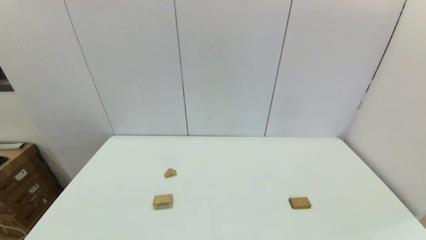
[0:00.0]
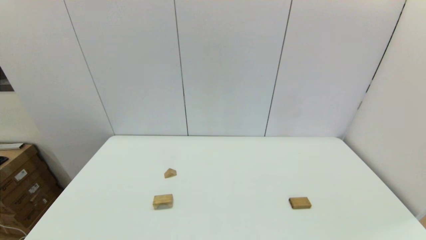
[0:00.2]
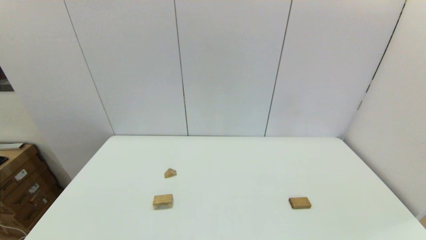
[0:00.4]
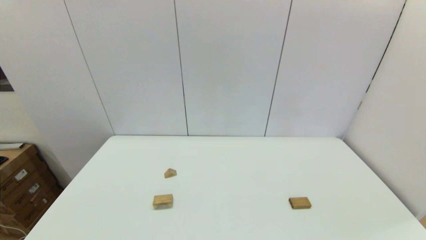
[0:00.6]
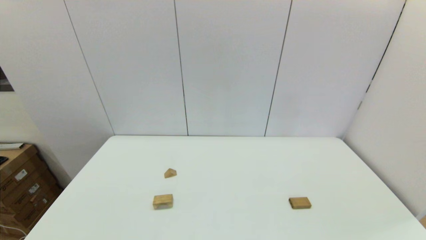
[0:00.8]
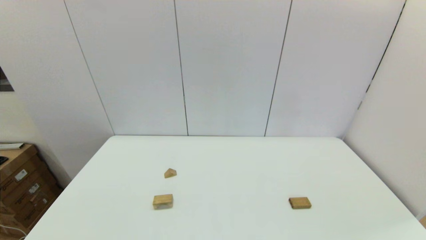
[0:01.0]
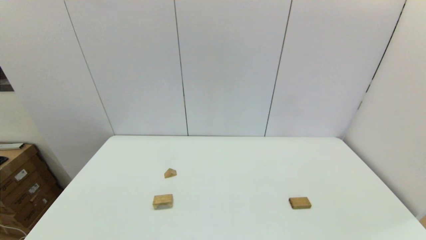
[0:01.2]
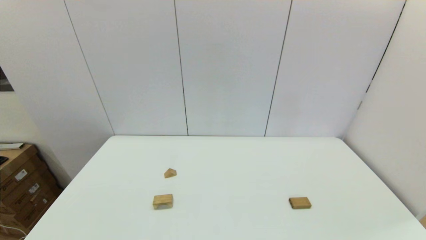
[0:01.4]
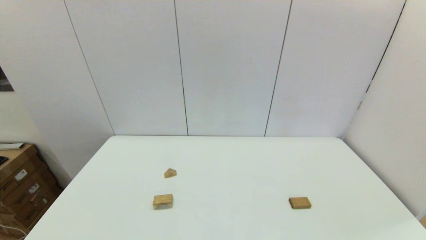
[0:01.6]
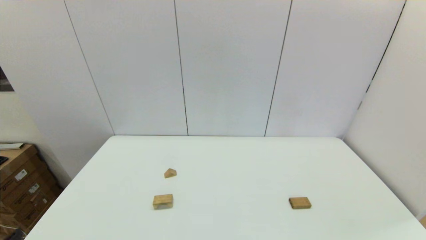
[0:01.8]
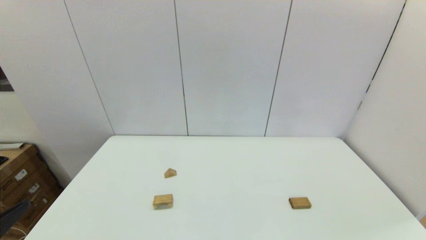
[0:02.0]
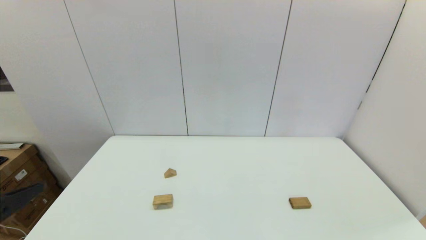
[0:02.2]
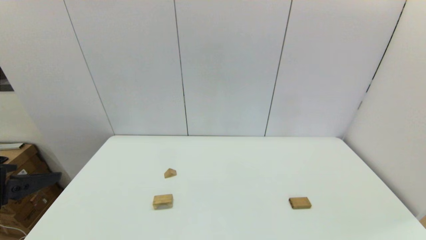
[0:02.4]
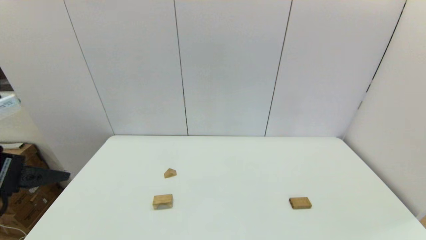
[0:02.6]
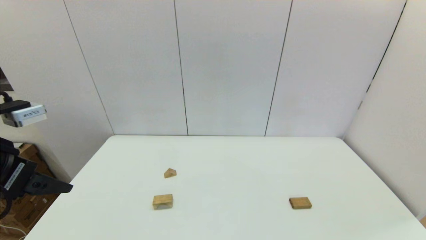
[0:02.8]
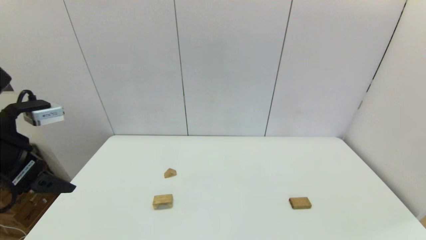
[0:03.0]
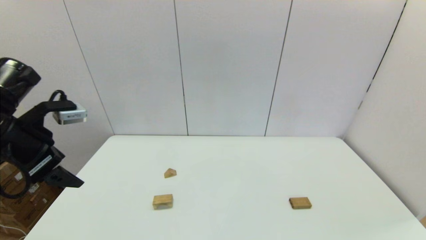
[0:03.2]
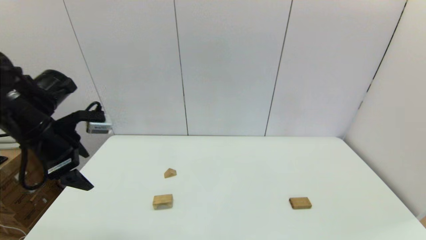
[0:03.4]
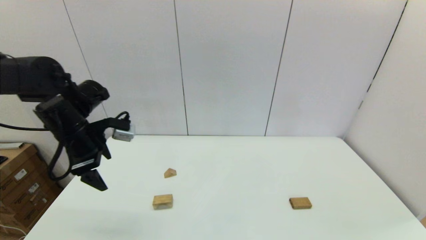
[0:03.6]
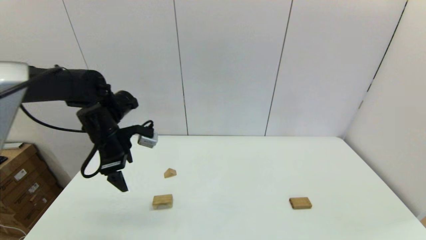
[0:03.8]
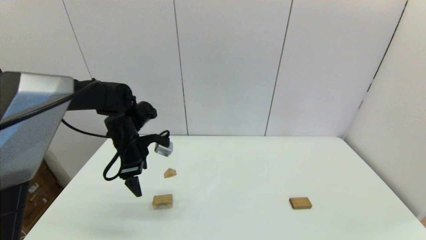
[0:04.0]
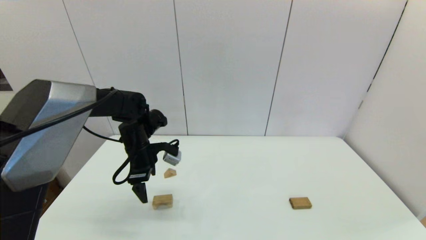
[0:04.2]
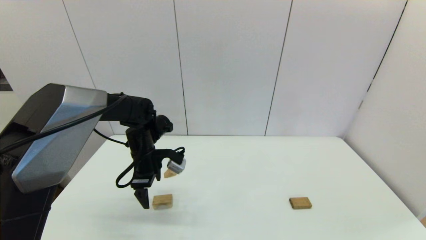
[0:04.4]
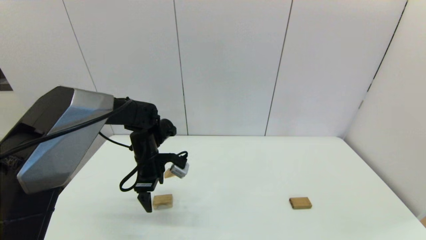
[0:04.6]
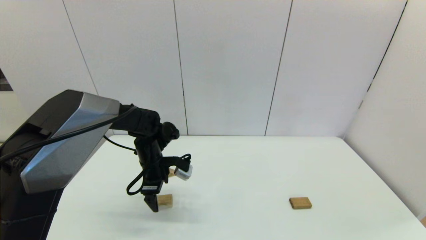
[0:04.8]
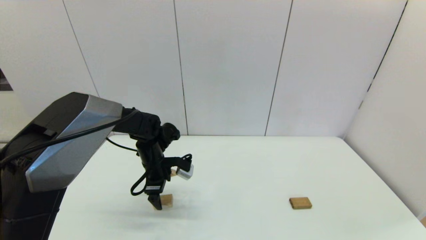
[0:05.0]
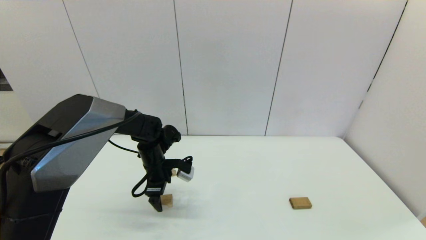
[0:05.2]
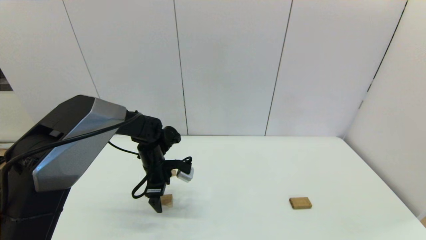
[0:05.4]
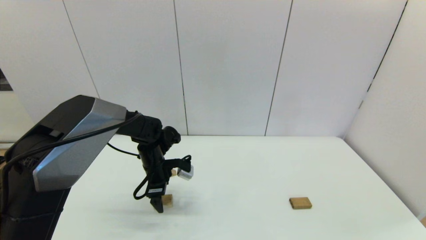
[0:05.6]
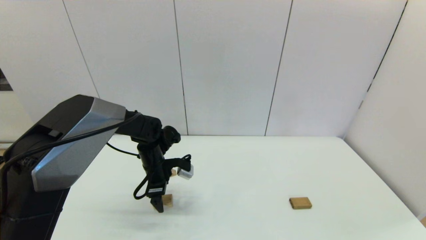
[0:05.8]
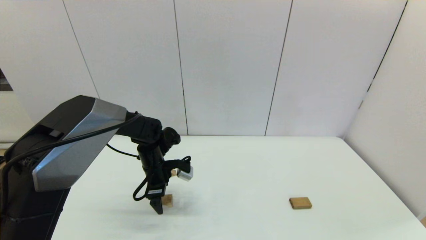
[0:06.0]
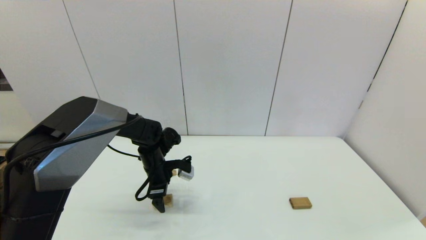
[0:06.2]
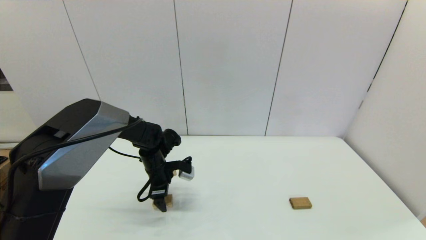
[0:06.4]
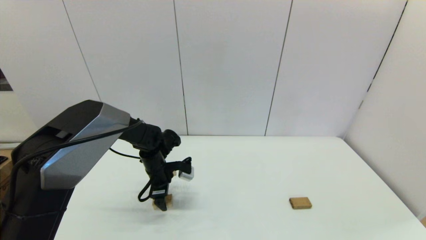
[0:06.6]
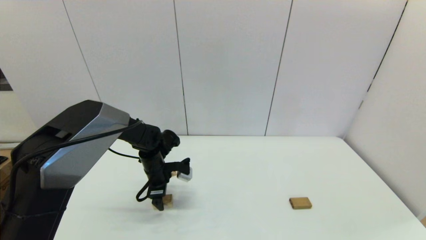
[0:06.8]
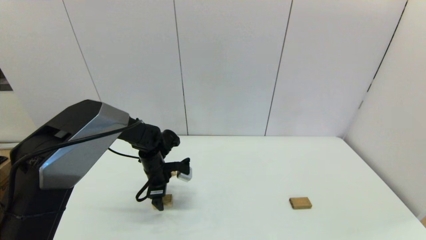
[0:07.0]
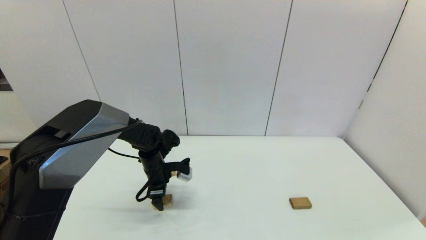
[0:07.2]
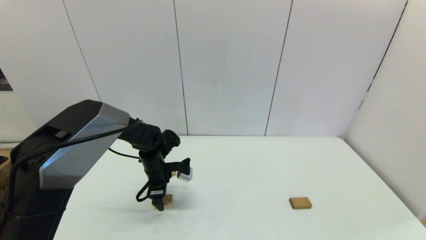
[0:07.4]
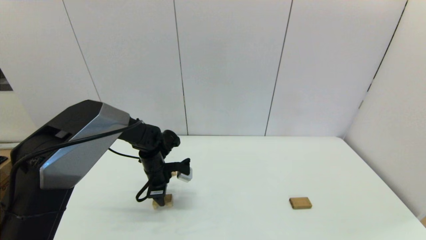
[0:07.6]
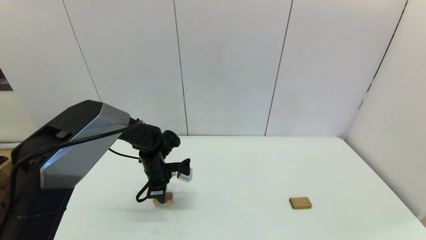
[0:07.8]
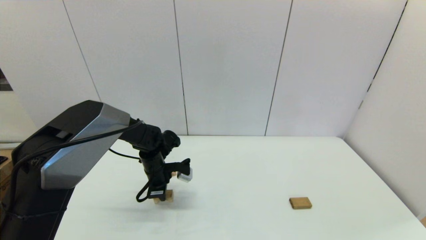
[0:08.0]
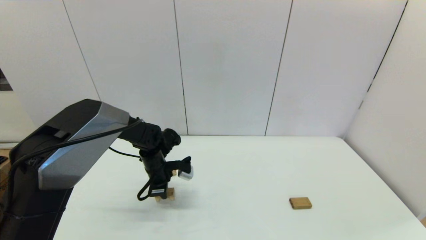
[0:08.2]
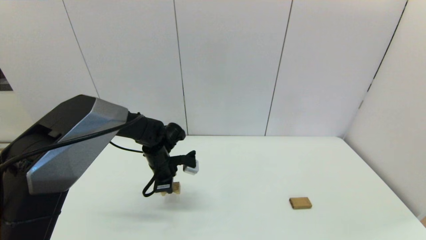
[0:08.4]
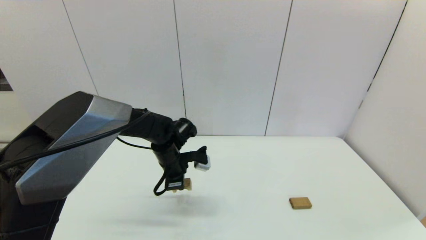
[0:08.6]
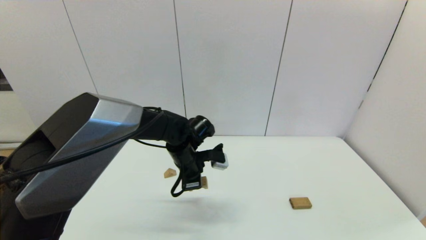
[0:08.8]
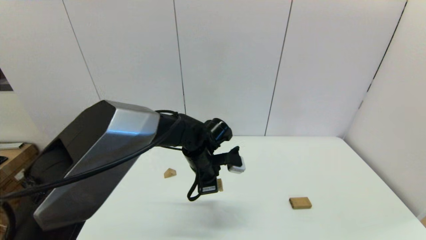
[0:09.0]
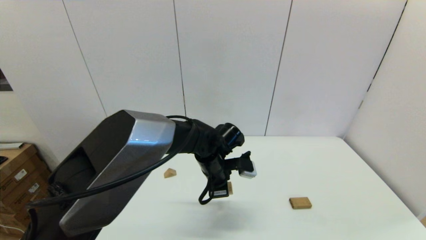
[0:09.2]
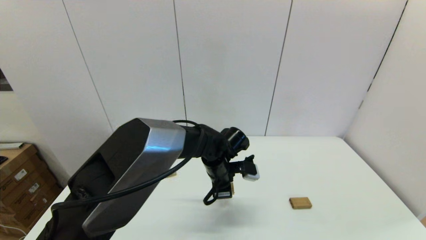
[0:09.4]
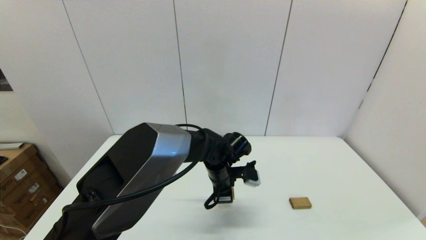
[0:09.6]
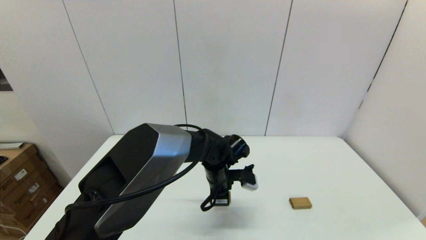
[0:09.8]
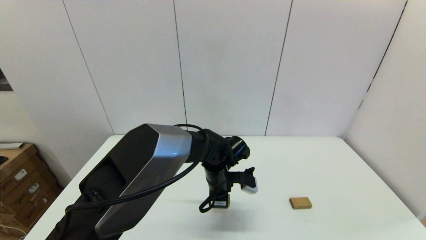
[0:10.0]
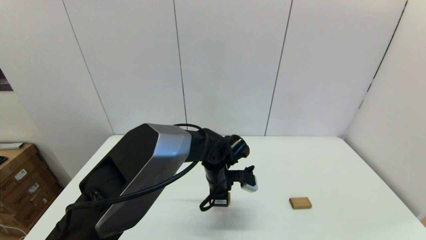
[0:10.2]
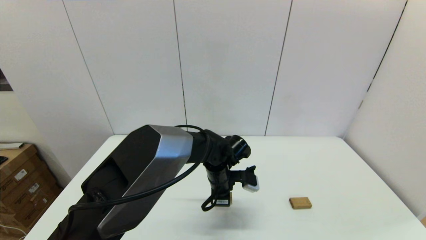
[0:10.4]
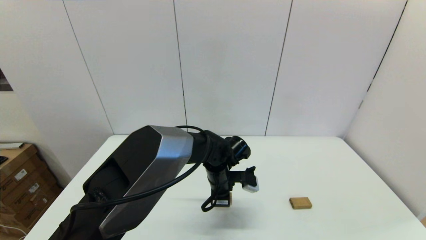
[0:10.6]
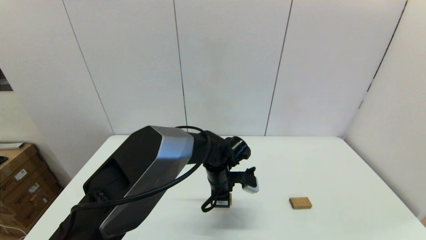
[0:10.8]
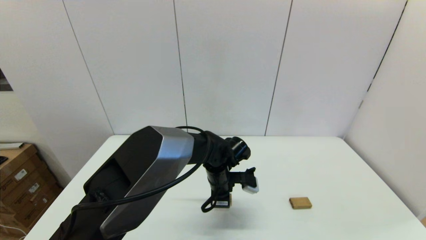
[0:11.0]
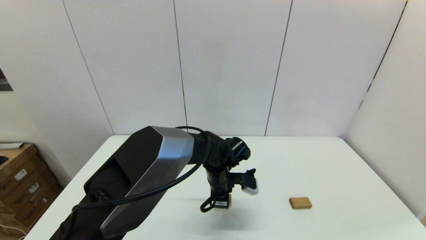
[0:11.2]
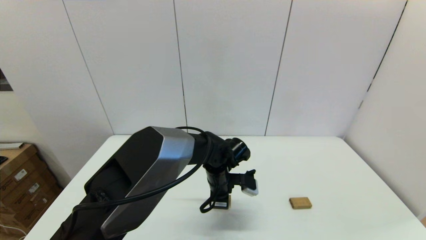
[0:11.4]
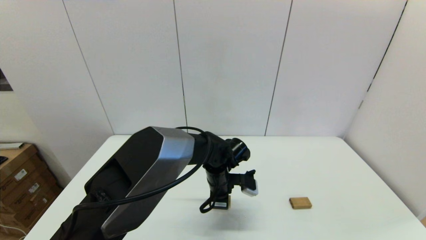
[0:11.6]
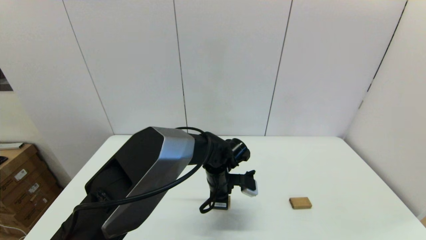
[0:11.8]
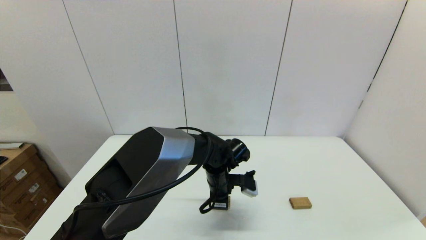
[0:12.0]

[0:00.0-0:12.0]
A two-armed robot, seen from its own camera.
Task of the whole recording: place the arched building blocks in the center of the table, set up the rectangular building blocks, and then set up the triangular building blocks.
Step, 0:01.8 to 0:07.6: Grasp the arch-shaped block with the left gripper.
0:01.6 to 0:03.0: The left gripper is displaced forward and upward by approximately 25 cm.
0:03.0 to 0:04.4: The left gripper moves forward, downward and to the right, roughly 25 cm.
0:04.4 to 0:06.0: The left gripper shifts some 5 cm downward.
0:06.0 to 0:07.6: The left gripper closes its fingers.
0:07.6 to 0:09.0: The left gripper travels to the right and upward by approximately 15 cm, and closes up.
0:09.0 to 0:10.4: The left gripper ends up approximately 5 cm from where it was.
0:10.4 to 0:12.0: Neither gripper changes place.

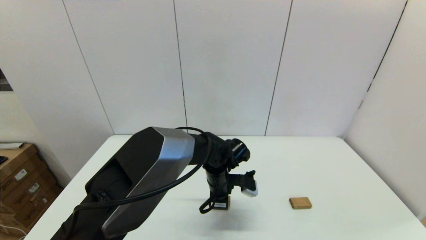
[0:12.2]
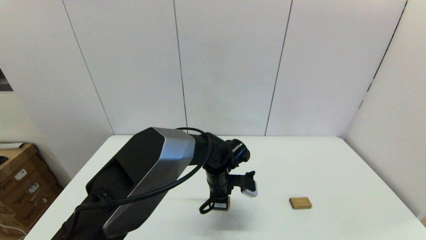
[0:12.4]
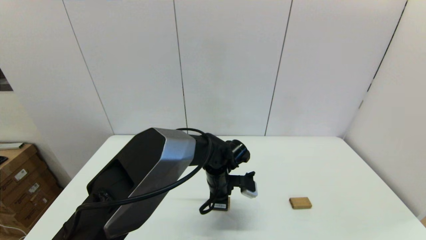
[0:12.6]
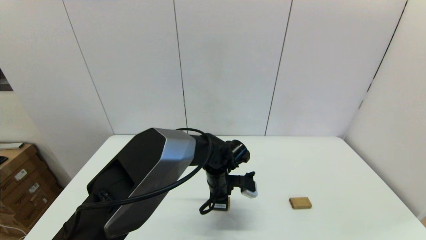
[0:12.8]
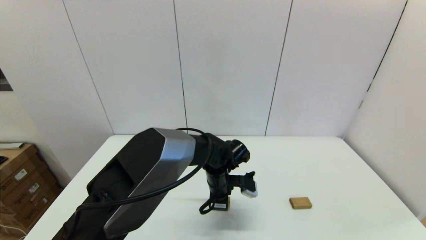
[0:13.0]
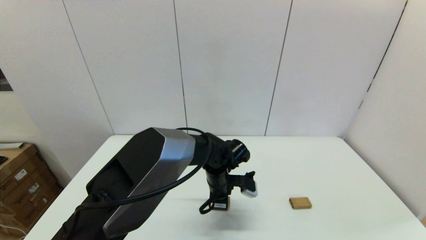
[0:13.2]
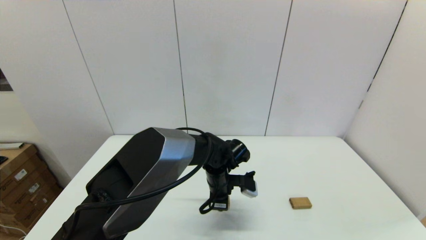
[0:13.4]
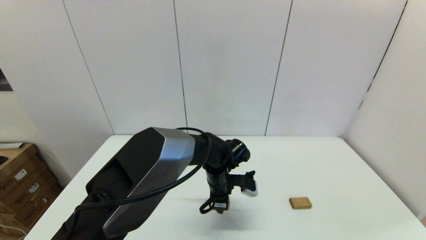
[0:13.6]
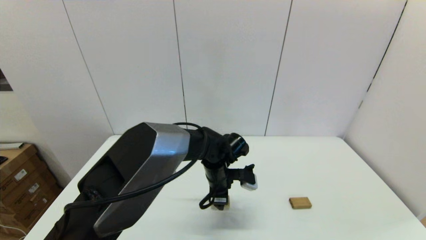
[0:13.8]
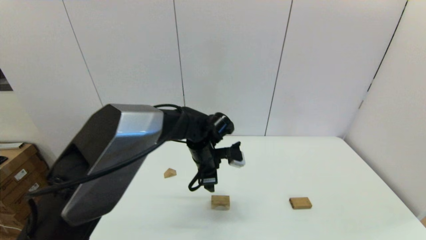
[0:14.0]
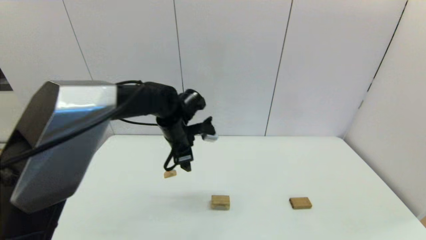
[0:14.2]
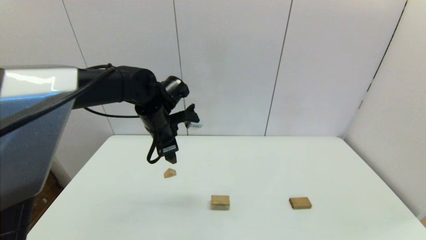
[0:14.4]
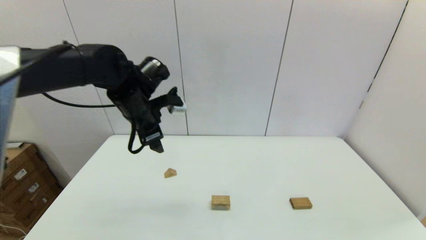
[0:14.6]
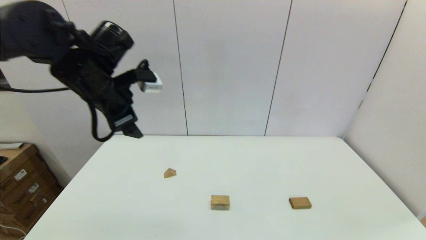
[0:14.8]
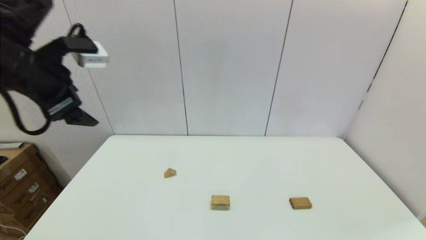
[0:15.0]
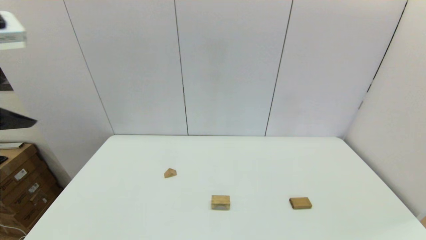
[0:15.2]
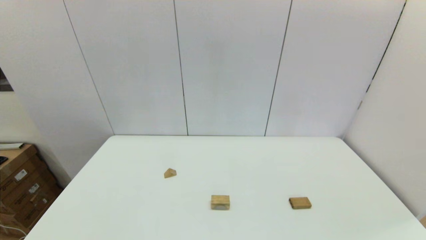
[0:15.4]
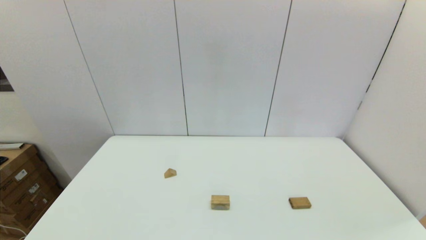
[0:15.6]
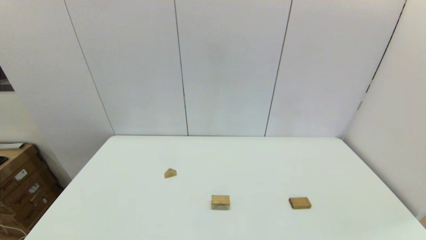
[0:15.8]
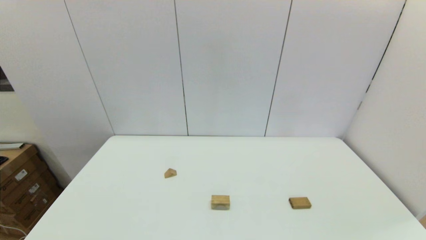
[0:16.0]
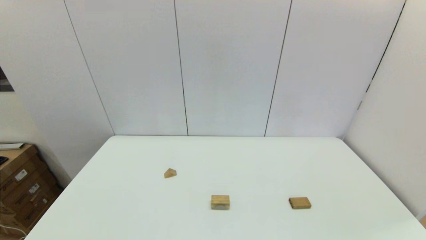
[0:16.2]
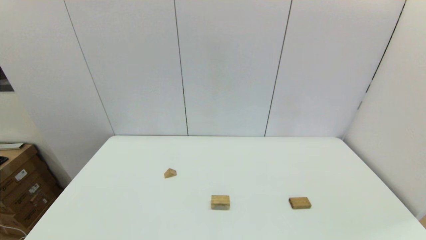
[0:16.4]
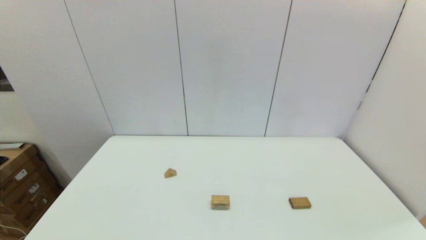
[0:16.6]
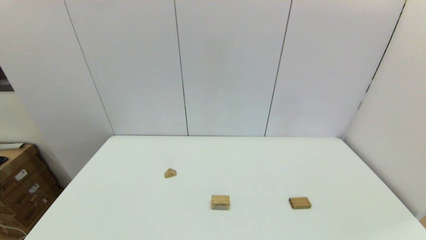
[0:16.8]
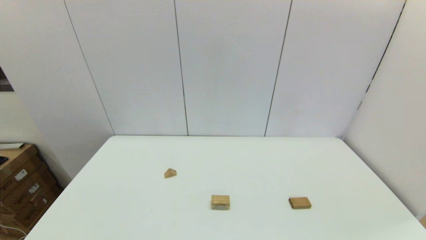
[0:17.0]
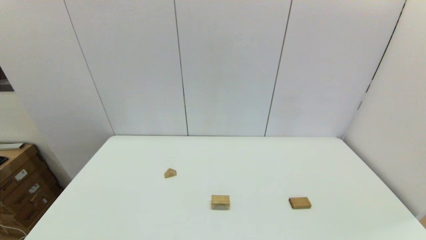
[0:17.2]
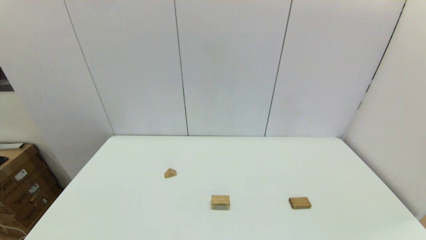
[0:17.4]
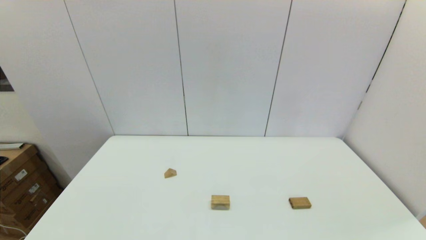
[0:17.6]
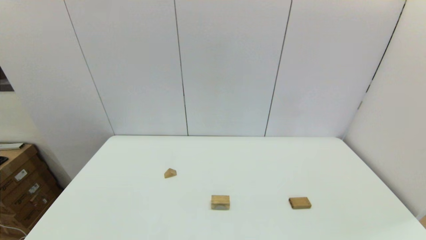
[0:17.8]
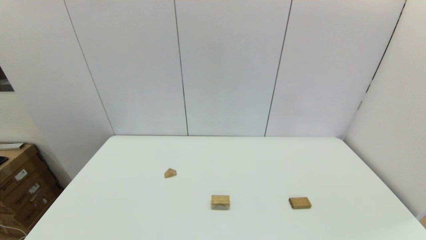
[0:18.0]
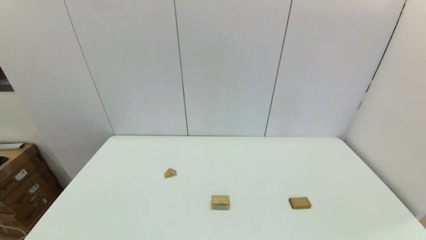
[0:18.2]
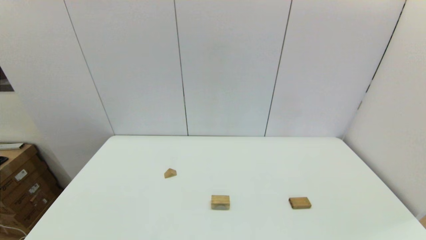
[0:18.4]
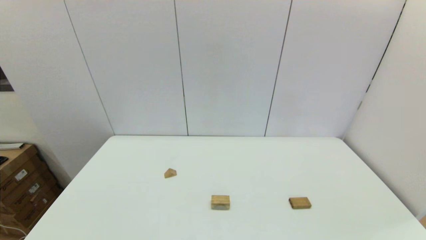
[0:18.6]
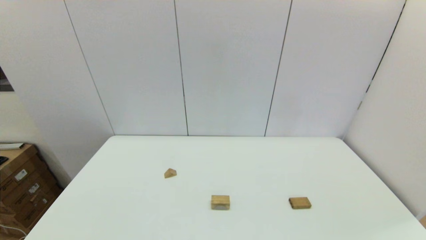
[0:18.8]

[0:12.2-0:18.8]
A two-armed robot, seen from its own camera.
Task of the whole recording: place the arched building blocks in the center of the table, set up the rectangular building blocks, and then set up the triangular building blocks.
0:12.2 to 0:13.8: The left gripper opens.
0:13.8 to 0:15.4: The left gripper goes roughly 50 cm upward, to the left and backward.
